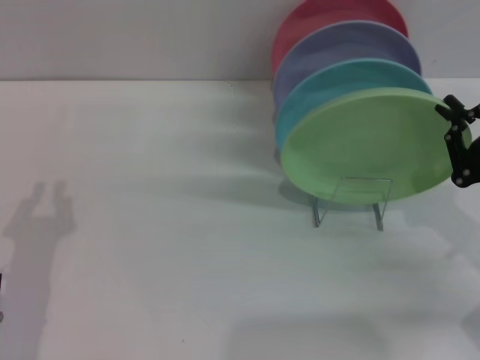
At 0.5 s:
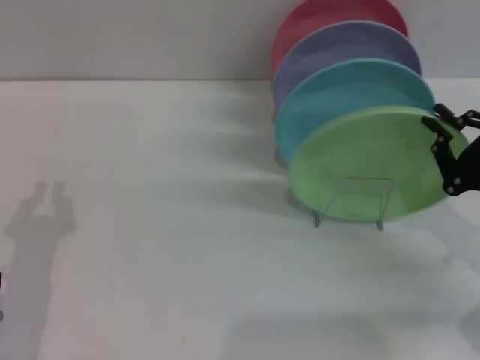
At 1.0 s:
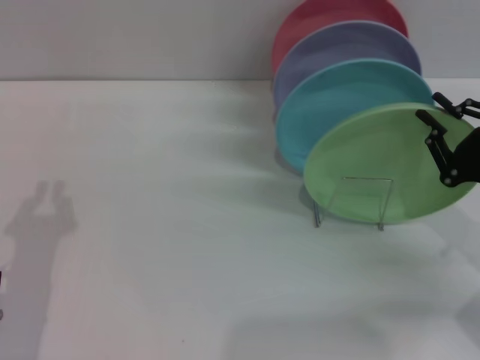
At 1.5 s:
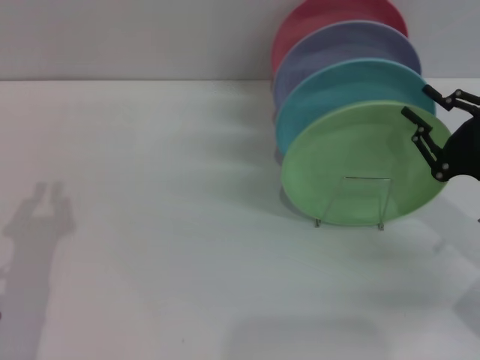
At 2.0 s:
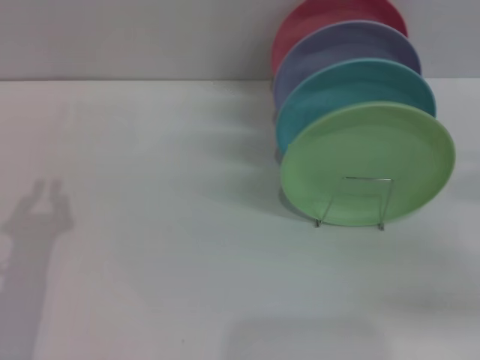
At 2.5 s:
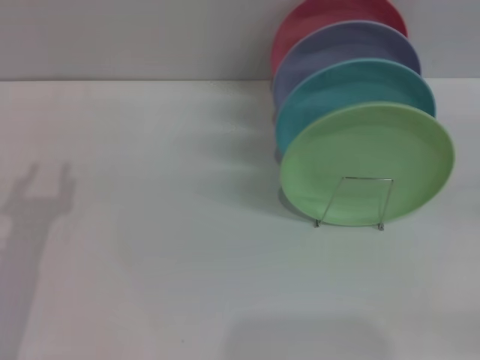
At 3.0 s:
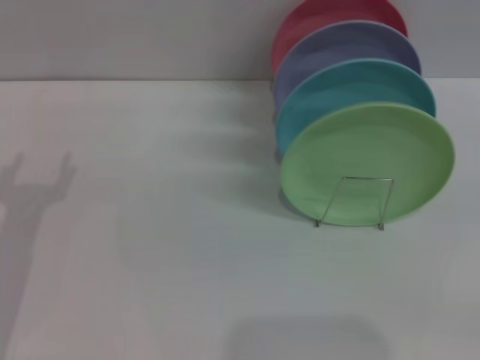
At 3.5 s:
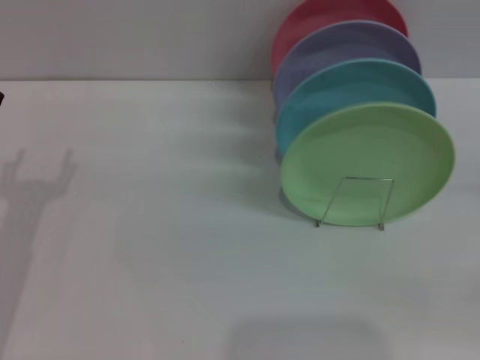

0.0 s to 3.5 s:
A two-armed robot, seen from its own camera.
Task of the whole recording: Grip the plate with one hand, pass it to the other, then set it on the shelf.
0.0 to 2.0 s: The right gripper moves roughly 5 cm.
2.0 to 3.5 s: The left gripper goes about 5 cm forward, and opens its fingers.

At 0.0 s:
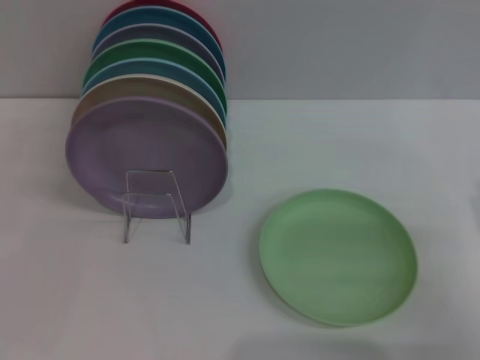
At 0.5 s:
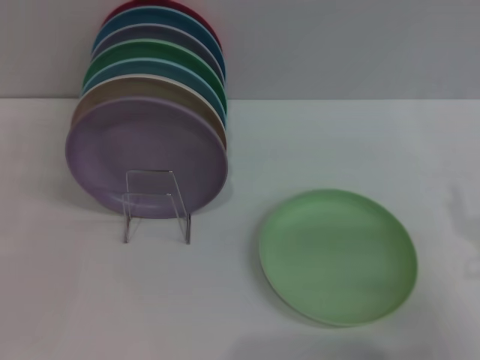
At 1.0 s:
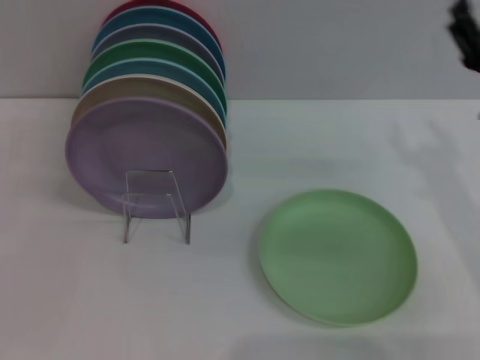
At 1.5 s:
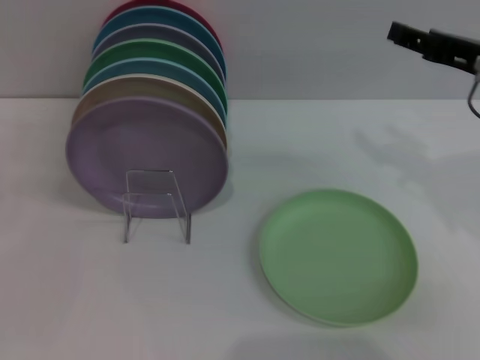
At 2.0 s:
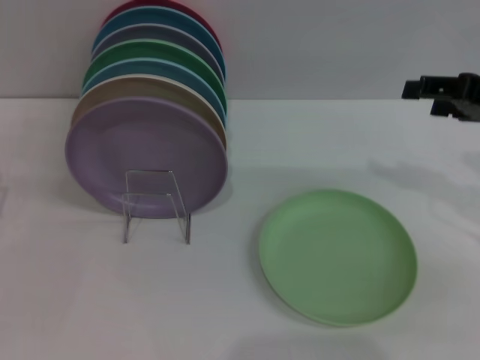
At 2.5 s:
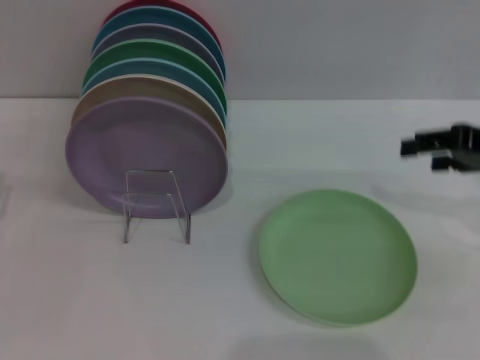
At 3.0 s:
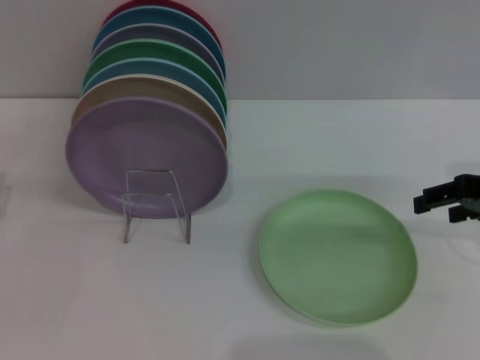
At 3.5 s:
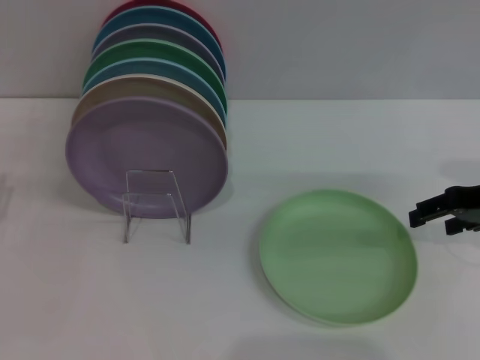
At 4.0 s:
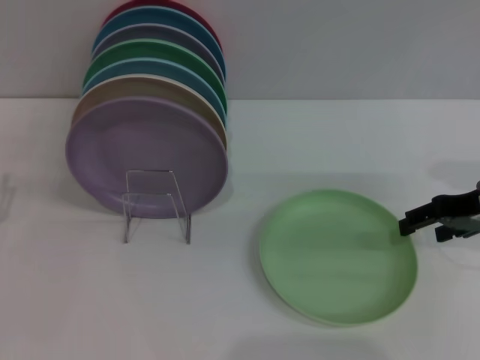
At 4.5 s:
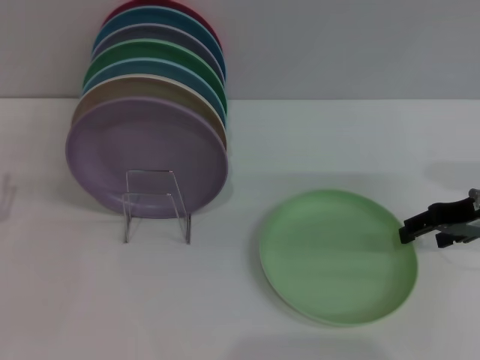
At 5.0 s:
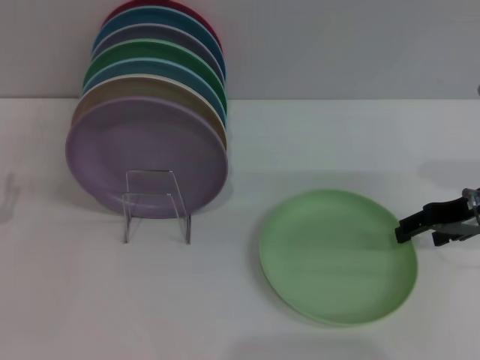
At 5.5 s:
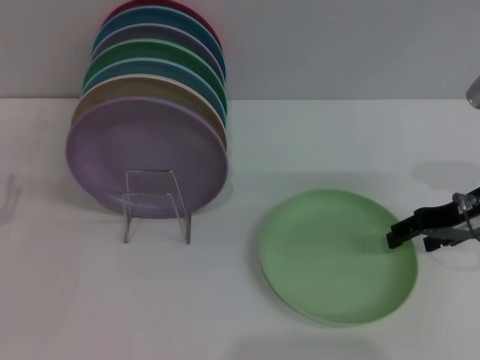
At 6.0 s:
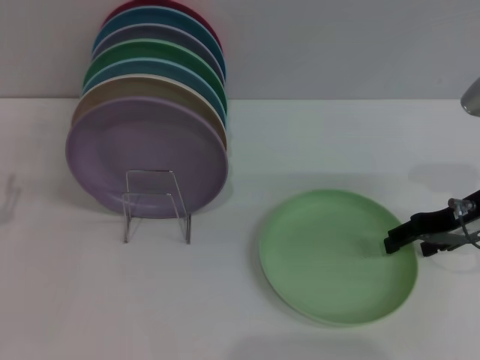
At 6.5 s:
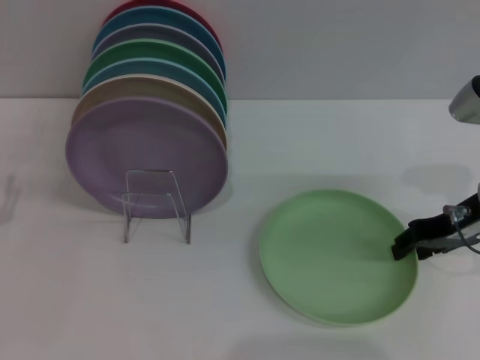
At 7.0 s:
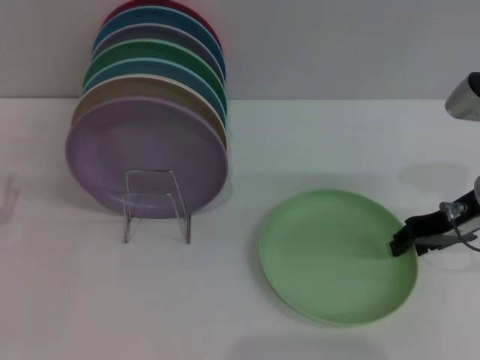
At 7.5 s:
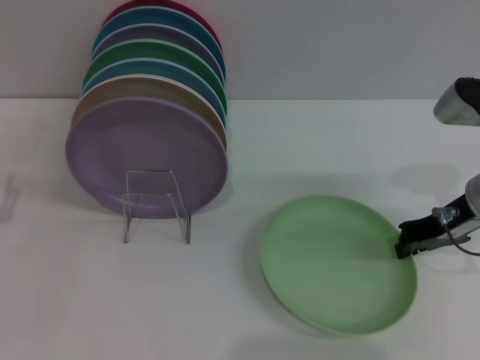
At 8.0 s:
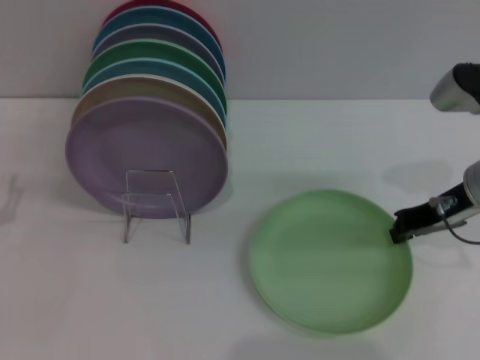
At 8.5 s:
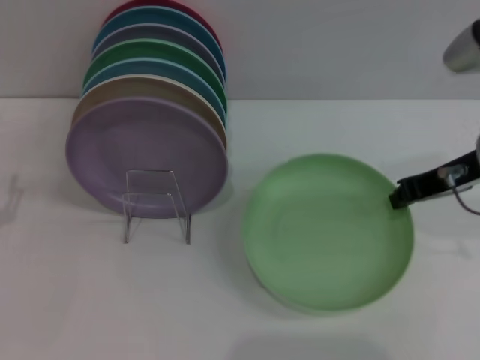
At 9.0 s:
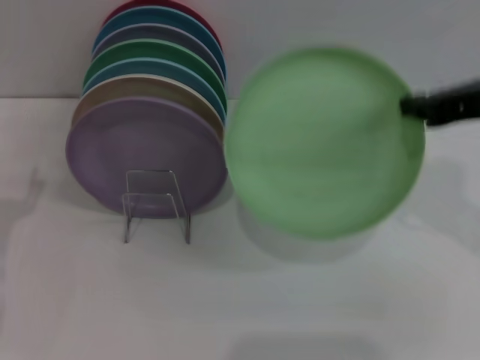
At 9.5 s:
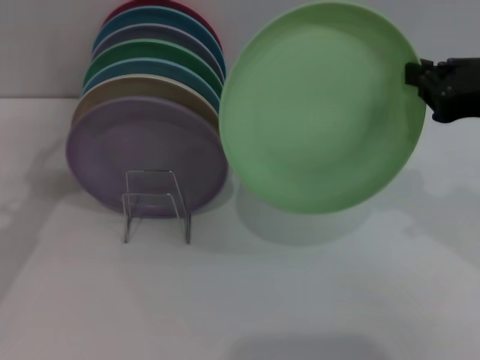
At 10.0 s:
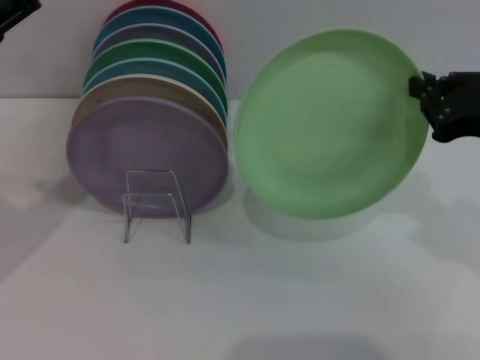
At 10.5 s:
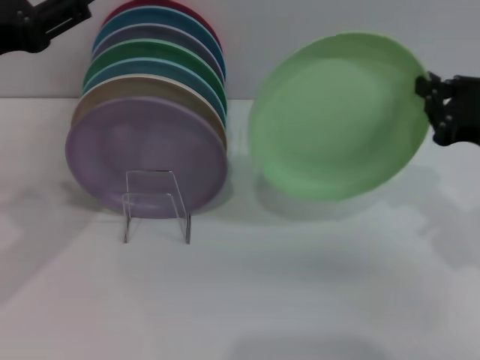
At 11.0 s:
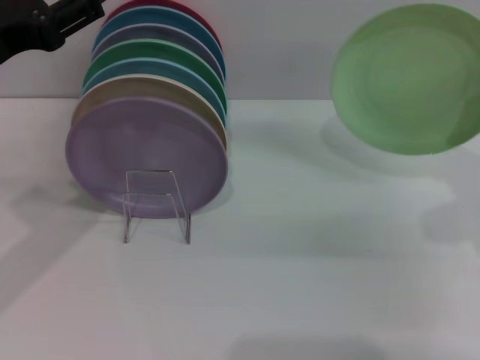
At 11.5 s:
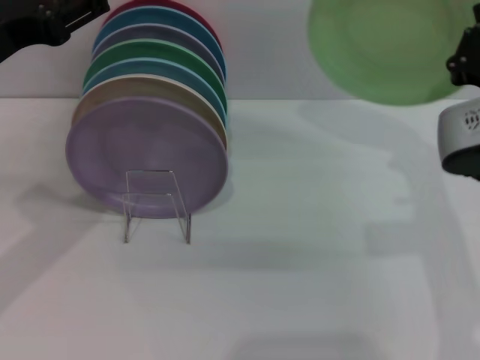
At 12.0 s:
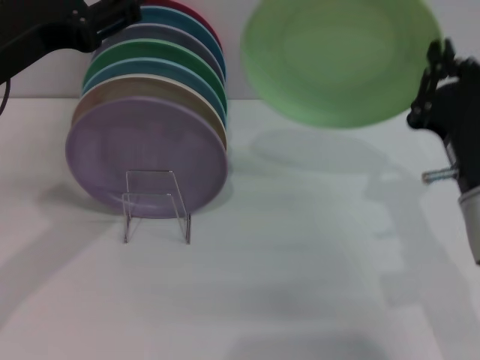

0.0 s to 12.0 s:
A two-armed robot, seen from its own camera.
Task of the whole recording: Grip the plate with one hand, pass it to the other, then set it on the shelf.
Step, 0.0 to 8.5 s: Pick up the plate with the right gripper.
0.0 to 2.0 s: The right gripper travels upward and forward by about 20 cm.
2.0 to 4.0 s: The right gripper shifts approximately 5 cm downward.
4.0 to 6.0 s: The grippers make only small movements.
6.0 to 8.0 s: The right gripper closes.
8.0 to 10.0 s: The left gripper shifts some 15 cm upward, while the right gripper heads backward and upward, covering roughly 10 cm.
10.0 to 12.0 s: The left gripper goes about 5 cm to the right; the right gripper heads downward and to the left, covering roughly 10 cm.

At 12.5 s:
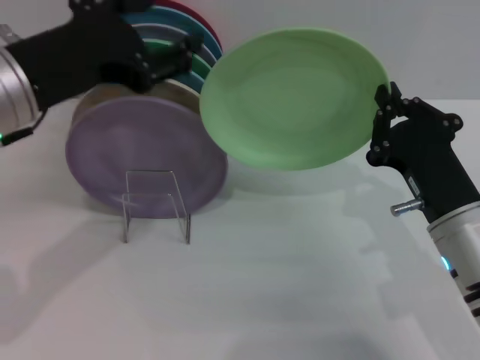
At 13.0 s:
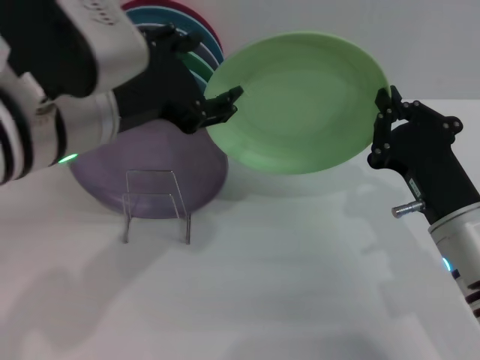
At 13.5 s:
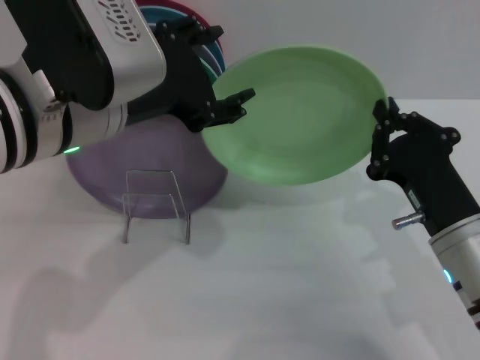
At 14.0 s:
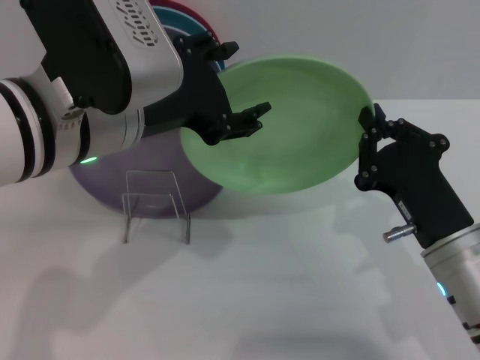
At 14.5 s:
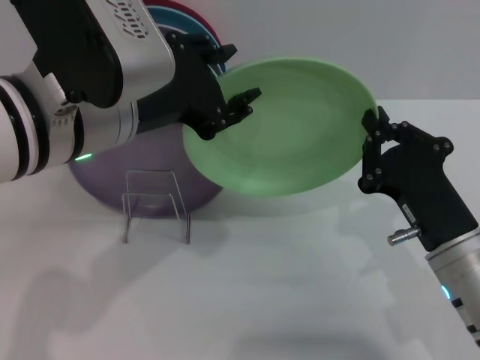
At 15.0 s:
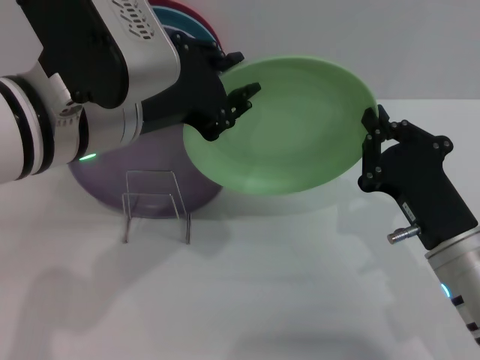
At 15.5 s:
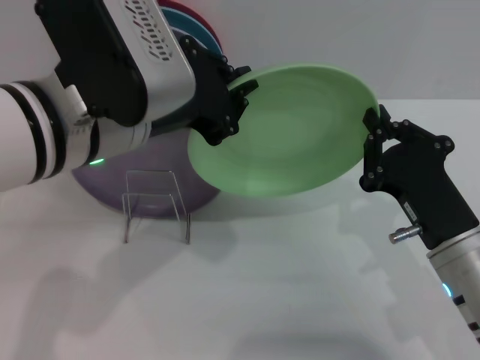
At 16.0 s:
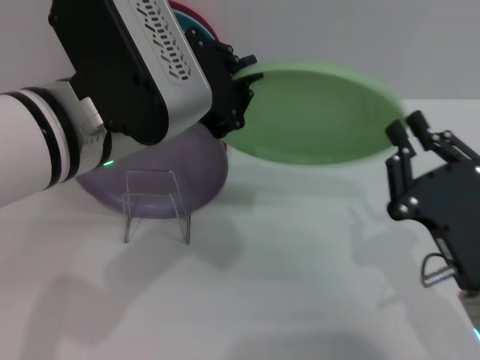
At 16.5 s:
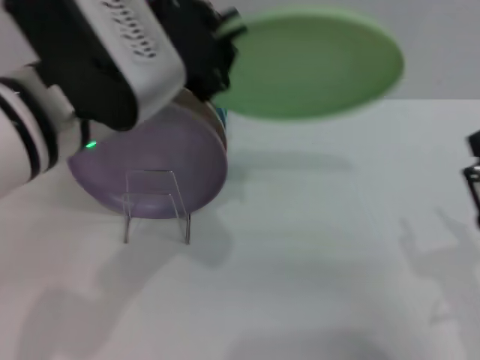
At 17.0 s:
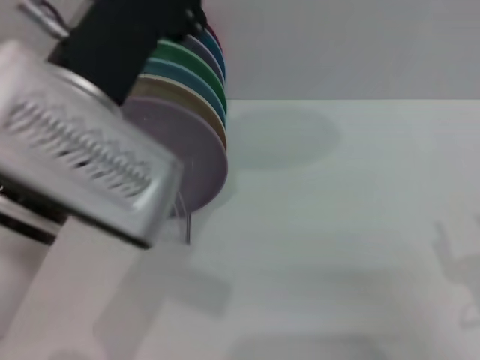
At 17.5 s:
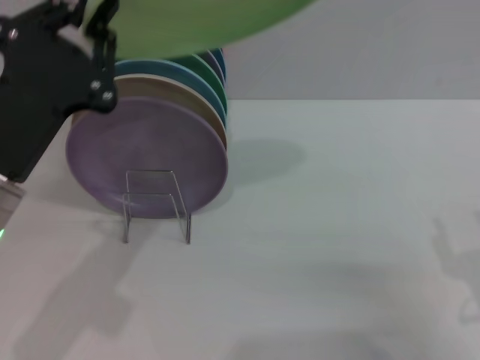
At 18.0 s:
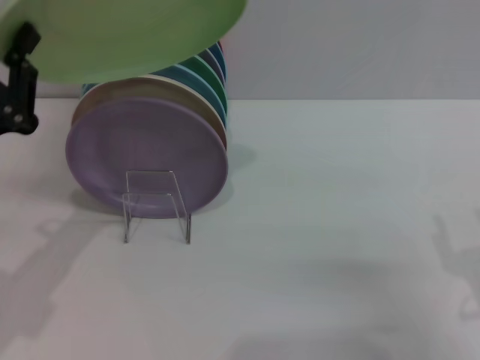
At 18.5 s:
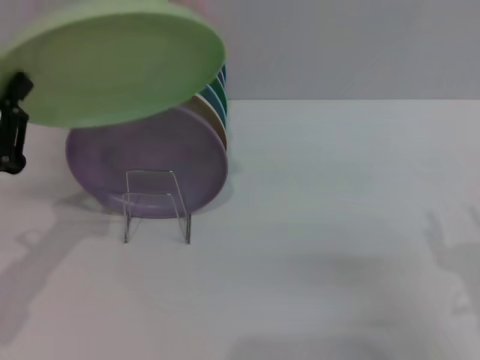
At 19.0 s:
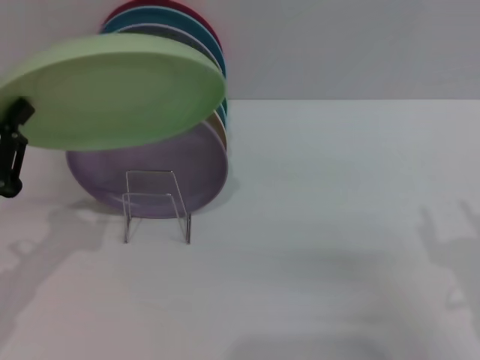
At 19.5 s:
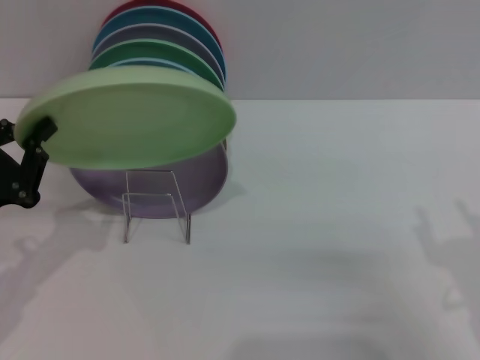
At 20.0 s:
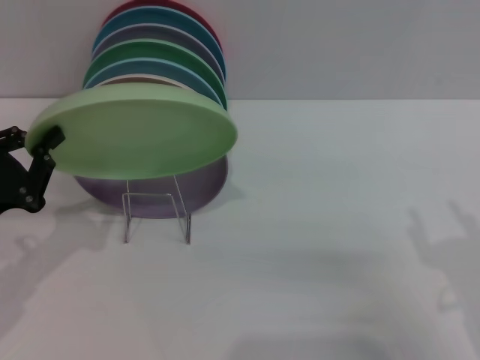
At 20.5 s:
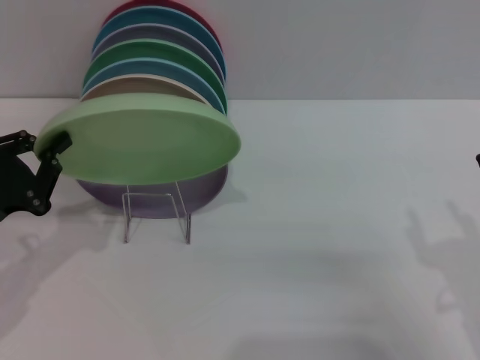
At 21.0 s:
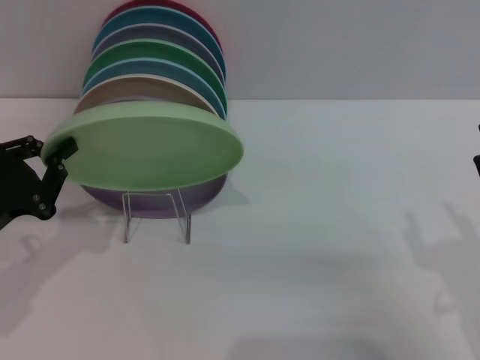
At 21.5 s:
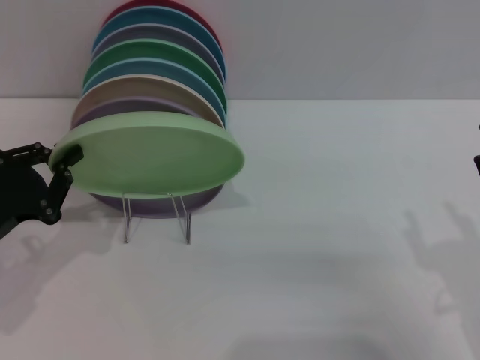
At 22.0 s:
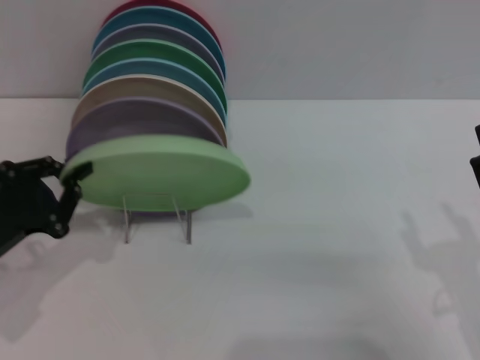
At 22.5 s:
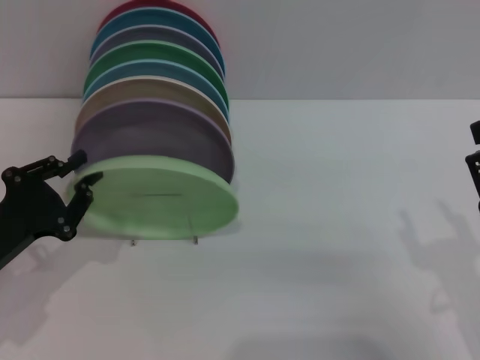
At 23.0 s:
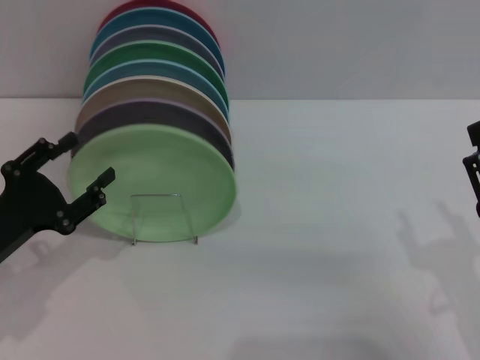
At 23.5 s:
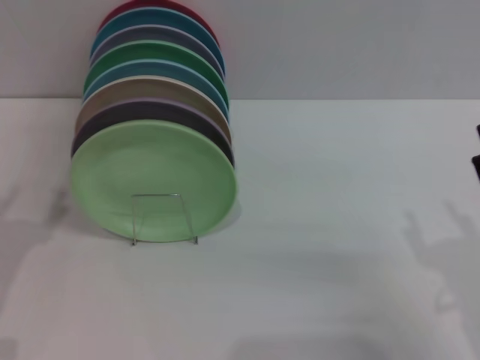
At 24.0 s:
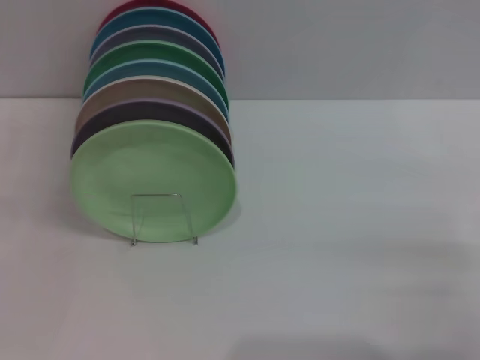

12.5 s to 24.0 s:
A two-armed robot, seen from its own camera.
Task of the whole recording: Grip the plate with one hand, pass it to the other, then set it on the shelf.
Step, 12.5 to 16.5 s: Pass the plate from the right gripper to the left gripper.
Step, 17.0 to 23.0 s: Place the plate on the shelf with the left gripper.
12.5 to 14.5 s: The left gripper shifts some 5 cm to the right.
14.5 to 16.5 s: The left gripper closes up. The right gripper moves backward, roughly 5 cm, and opens up.
16.5 to 18.5 s: The left gripper heads to the left and downward, covering approximately 20 cm. The right gripper opens its fingers.
18.5 to 20.0 s: There are only small adjustments of the grippers.
20.0 to 22.0 s: The grippers move only a little.
22.0 to 24.0 s: The right gripper goes about 5 cm to the right; the left gripper ends up some 5 cm from where it was, and opens.
